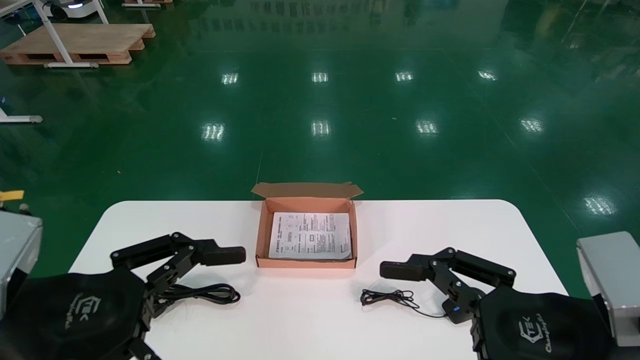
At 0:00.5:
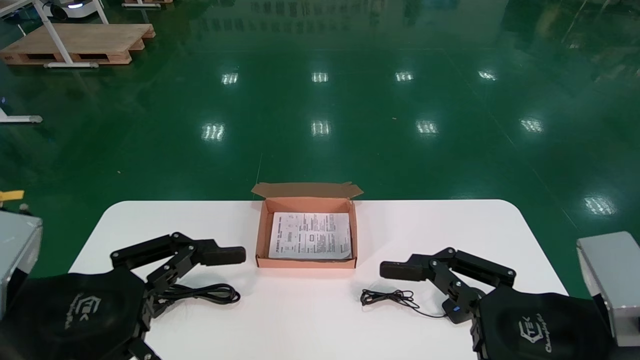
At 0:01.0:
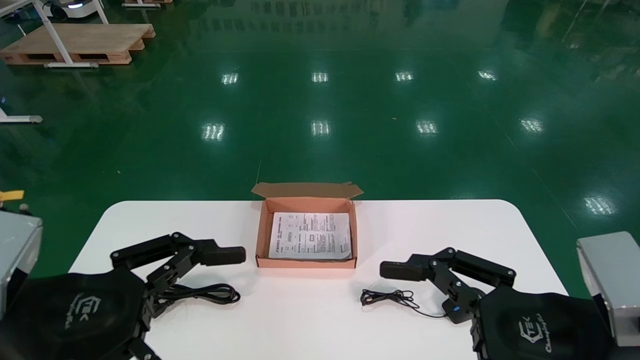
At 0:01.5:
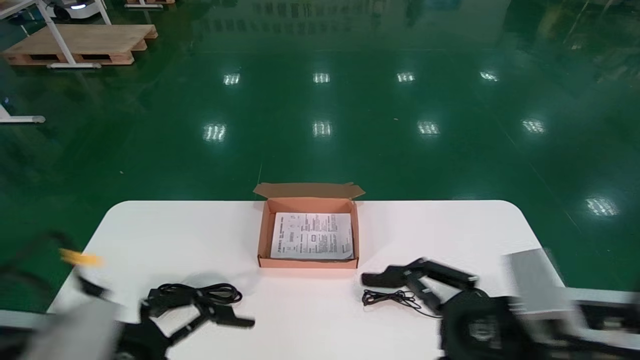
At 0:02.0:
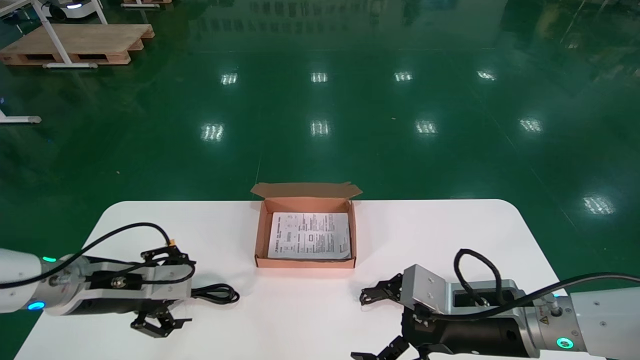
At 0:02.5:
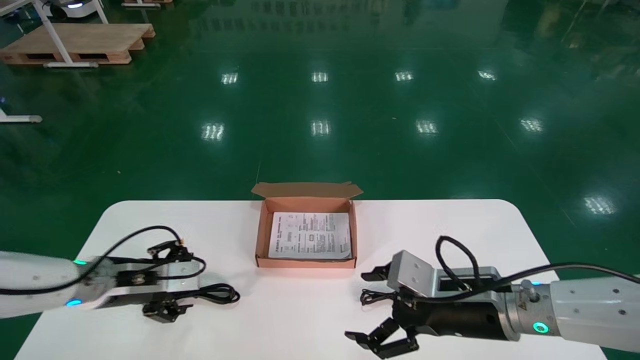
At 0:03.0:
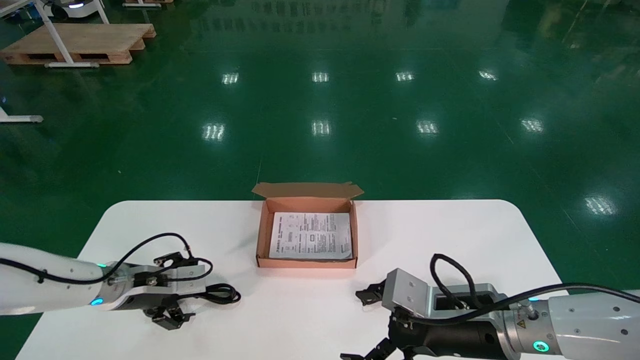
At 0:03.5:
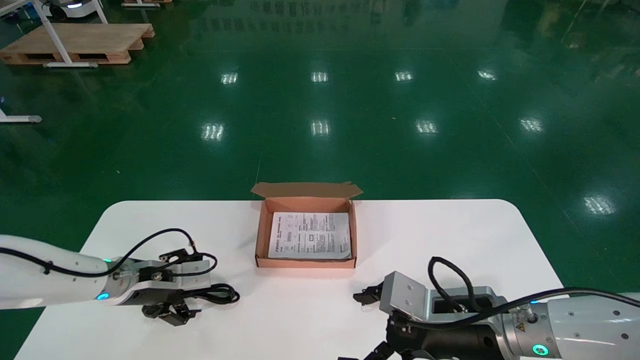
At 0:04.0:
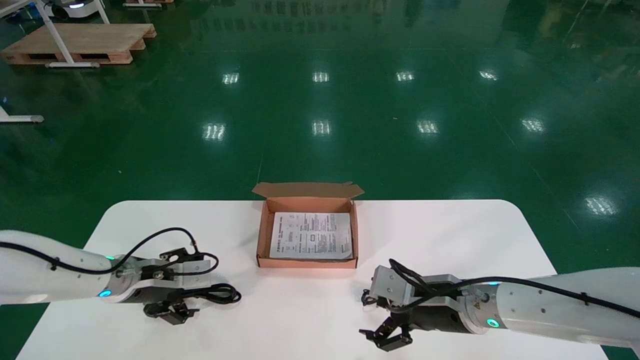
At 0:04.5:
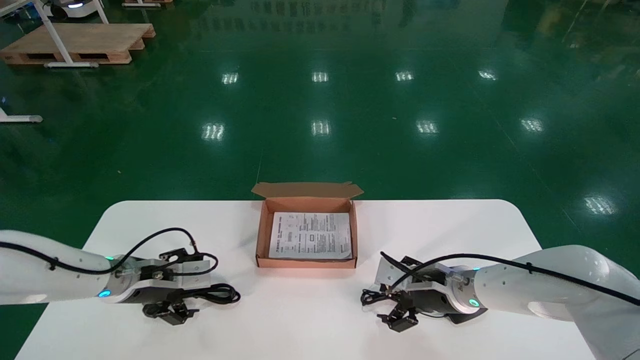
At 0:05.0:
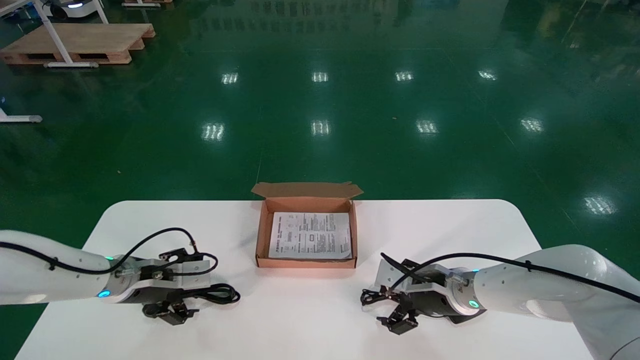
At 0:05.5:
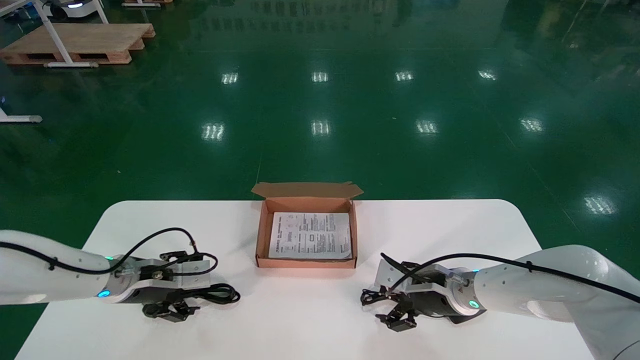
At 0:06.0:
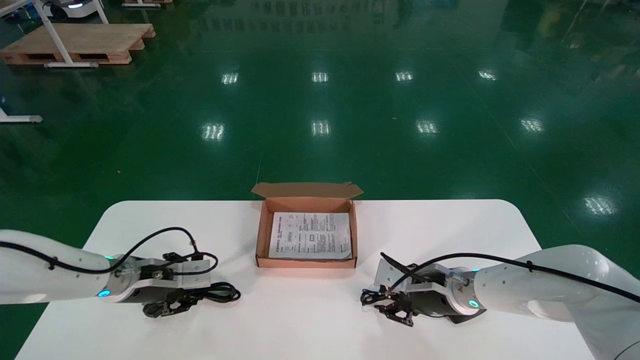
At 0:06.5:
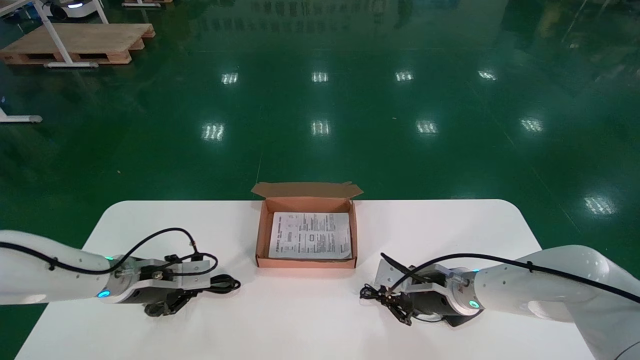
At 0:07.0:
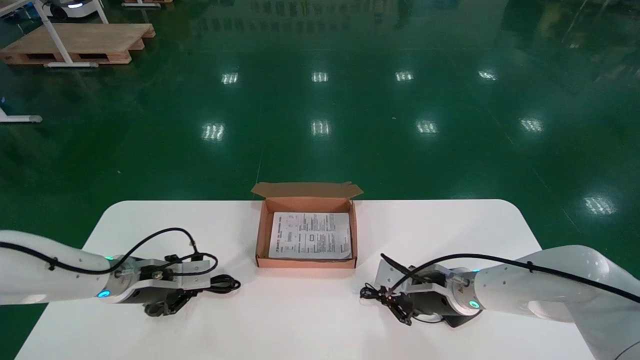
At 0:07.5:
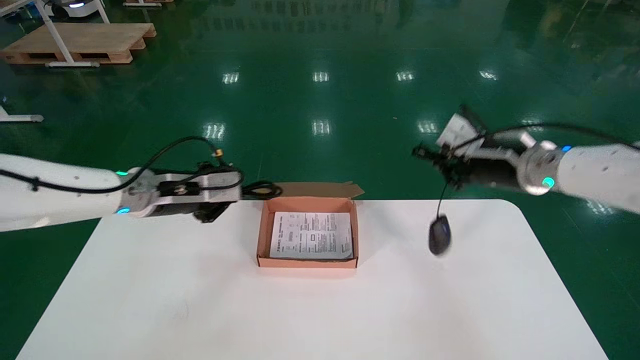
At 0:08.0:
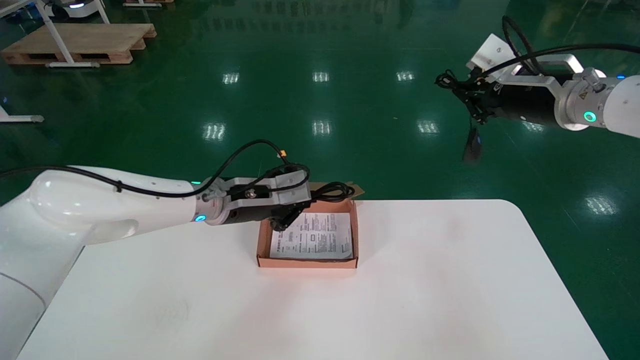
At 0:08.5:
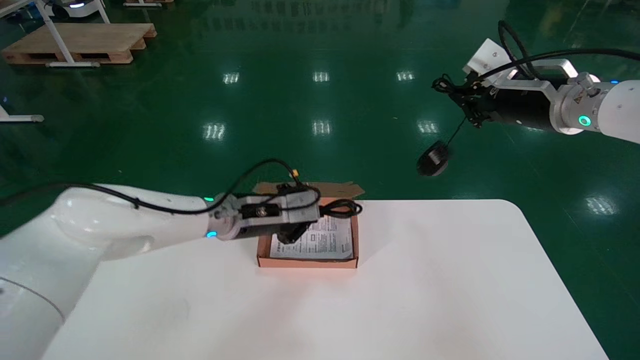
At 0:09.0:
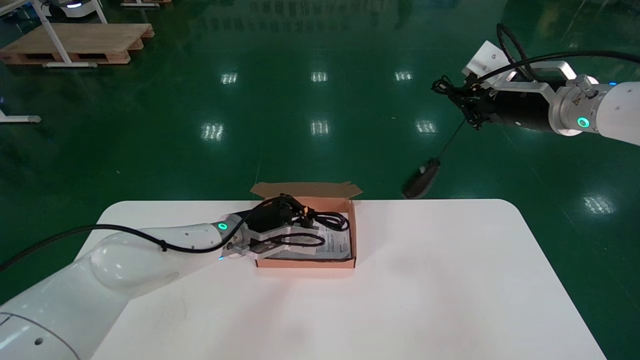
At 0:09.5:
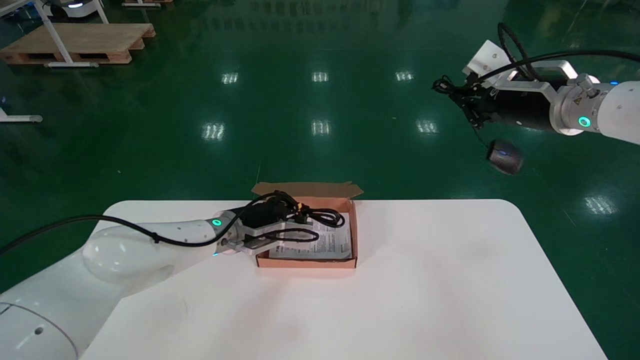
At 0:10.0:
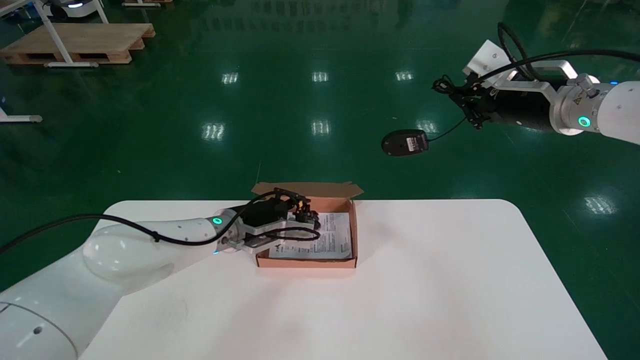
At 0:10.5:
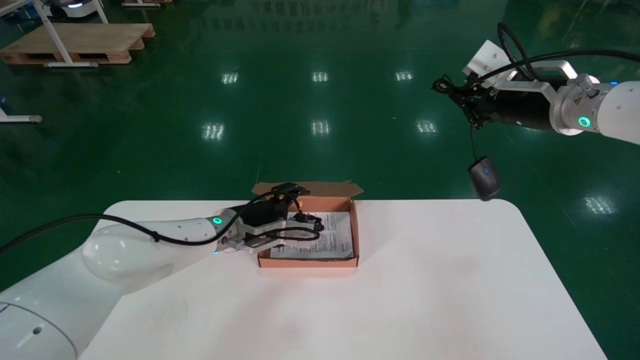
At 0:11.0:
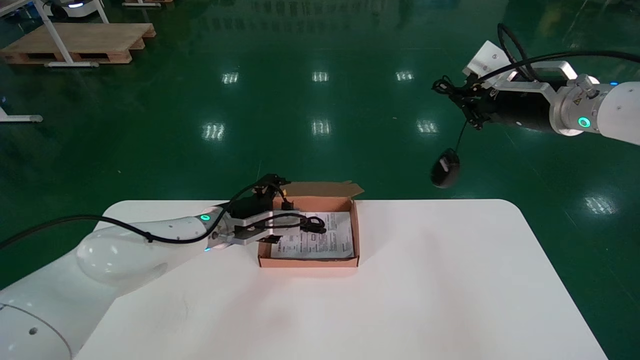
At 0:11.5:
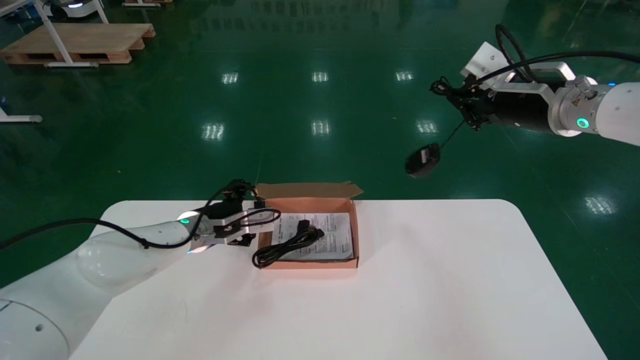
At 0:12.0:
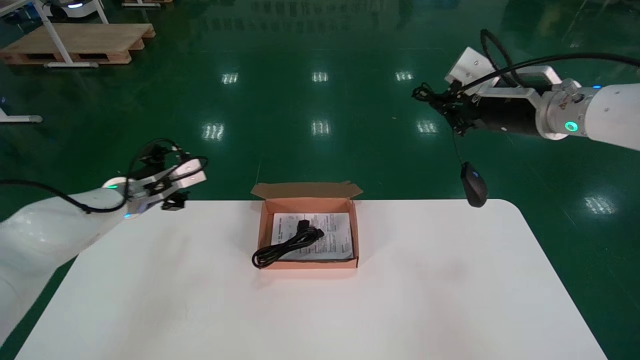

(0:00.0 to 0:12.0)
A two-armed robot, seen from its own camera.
Step, 0:02.0 - 0:06.5: Simultaneously pick up the mouse and power cord from the accessory packaging area.
0:00.0 - 0:02.0: The left gripper moves forward, approximately 15 cm. Meanwhile the right gripper moves forward and downward, about 15 cm.
0:02.0 - 0:04.0: The two grippers go roughly 10 cm forward.
0:04.0 - 0:06.0: The left gripper closes, while the right gripper is displaced forward by about 5 cm, and closes up.
0:06.0 - 0:08.0: The left gripper goes about 20 cm to the right and upward, and closes up, while the right gripper heads upward, covering approximately 30 cm, and closes up.
0:08.0 - 0:10.0: The left gripper travels downward by about 5 cm.
0:10.0 - 0:12.0: The left gripper travels to the left by roughly 20 cm, and opens up.

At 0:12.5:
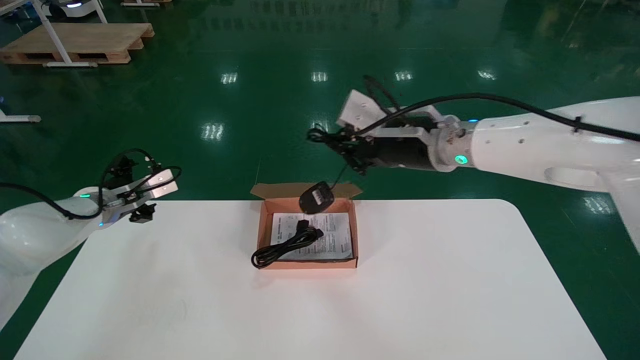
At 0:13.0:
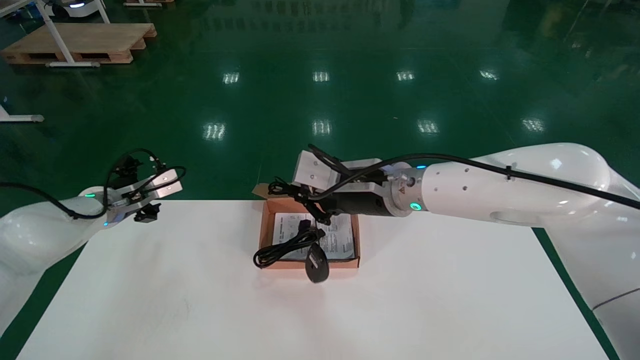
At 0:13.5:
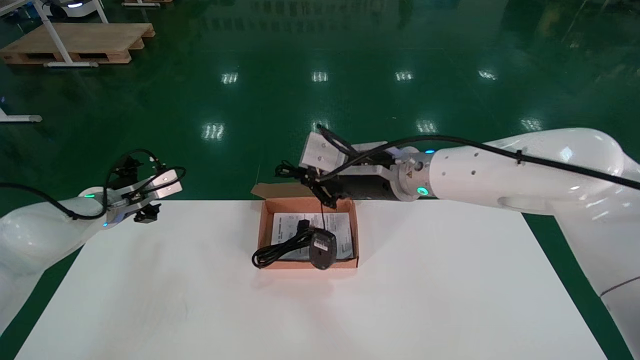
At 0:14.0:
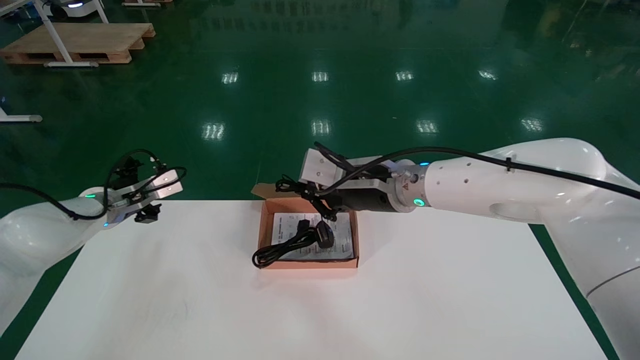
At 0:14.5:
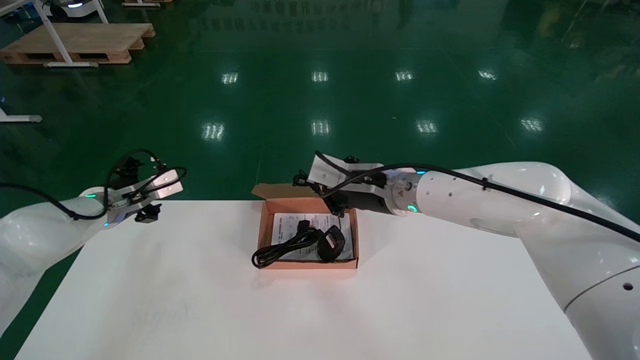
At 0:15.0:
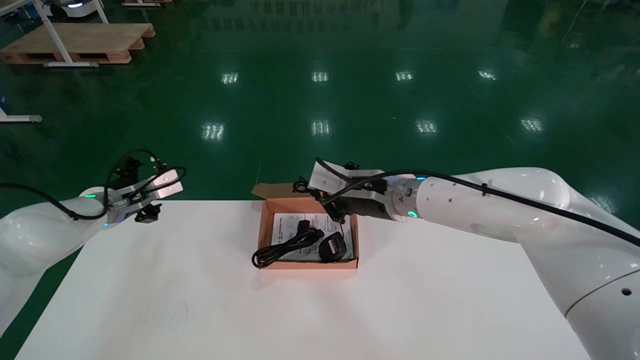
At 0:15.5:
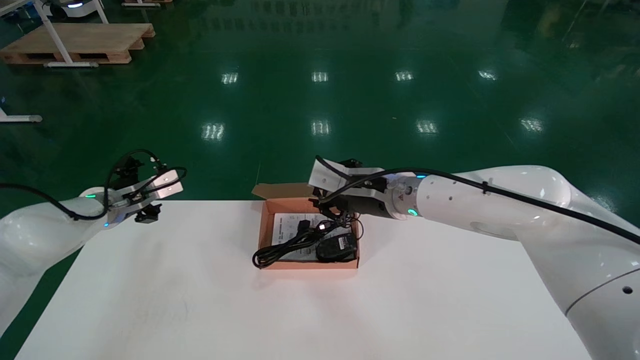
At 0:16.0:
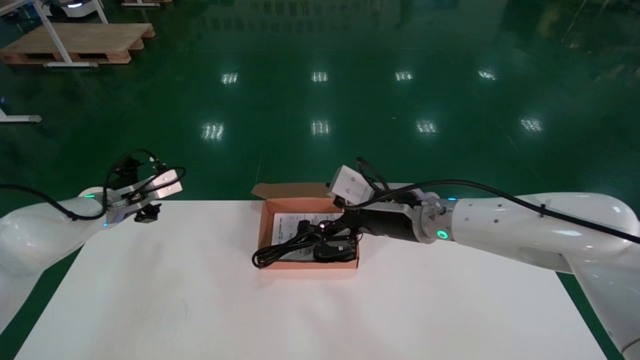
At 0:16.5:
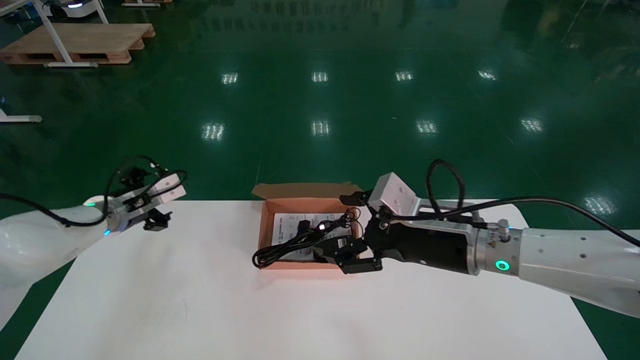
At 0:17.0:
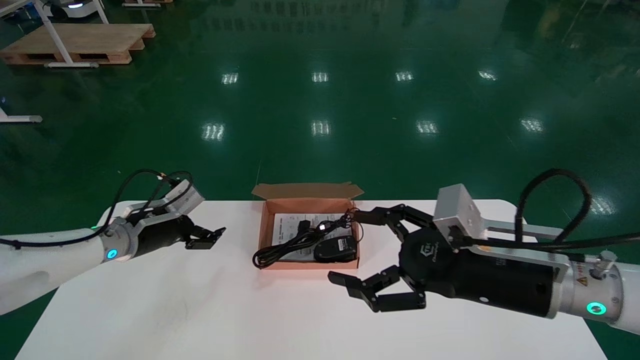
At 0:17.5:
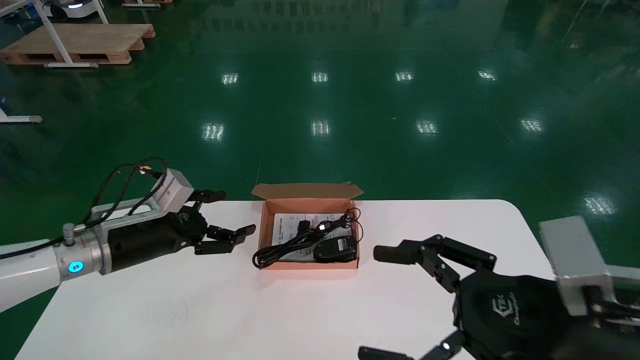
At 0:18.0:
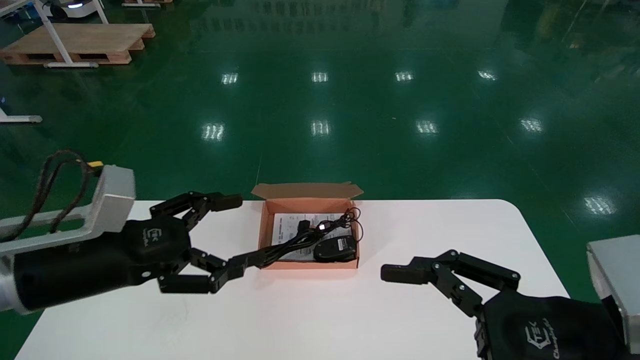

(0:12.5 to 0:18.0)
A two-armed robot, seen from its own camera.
Step, 0:12.5 - 0:15.0: Place the mouse and power cord into the box.
0:12.5 - 0:14.5: The right gripper goes about 10 cm downward.
0:14.5 - 0:16.0: The right gripper ends up some 5 cm from where it was, and opens up.
0:16.0 - 0:18.0: The right gripper goes about 25 cm backward and to the right. The left gripper travels backward by about 20 cm.
